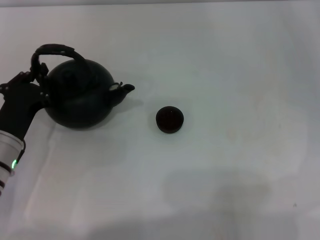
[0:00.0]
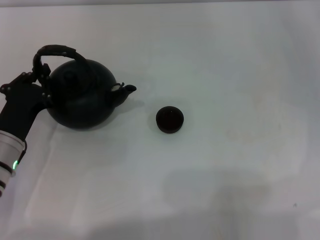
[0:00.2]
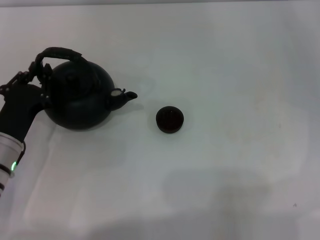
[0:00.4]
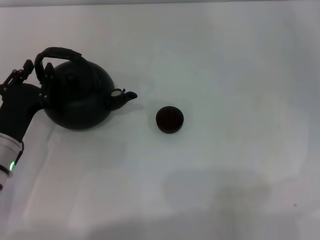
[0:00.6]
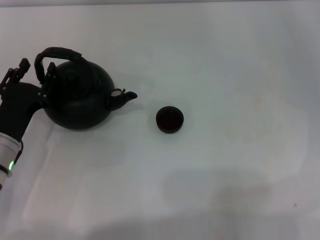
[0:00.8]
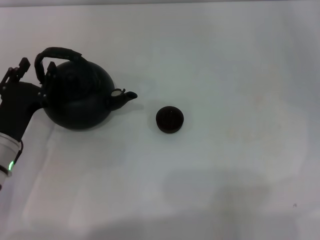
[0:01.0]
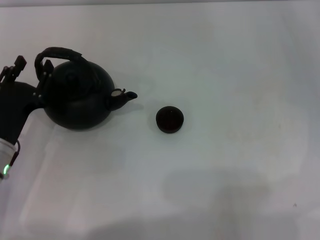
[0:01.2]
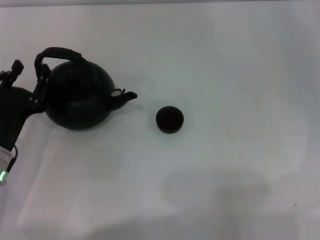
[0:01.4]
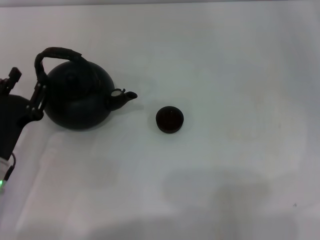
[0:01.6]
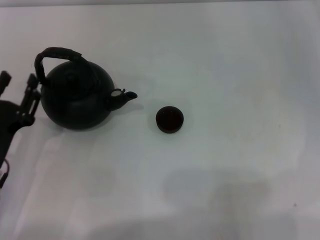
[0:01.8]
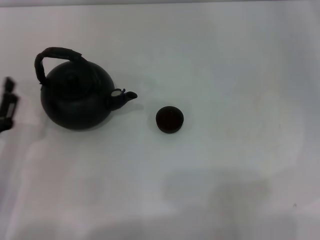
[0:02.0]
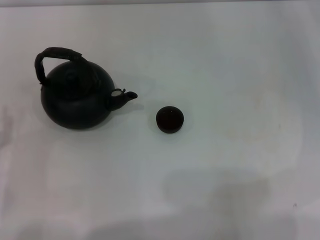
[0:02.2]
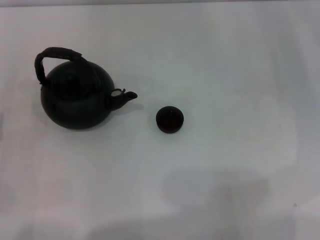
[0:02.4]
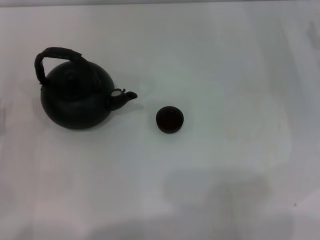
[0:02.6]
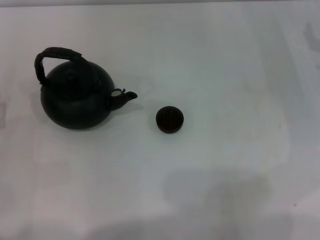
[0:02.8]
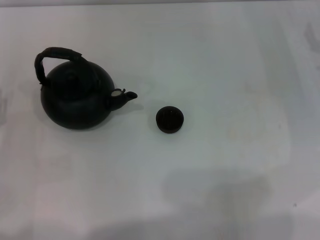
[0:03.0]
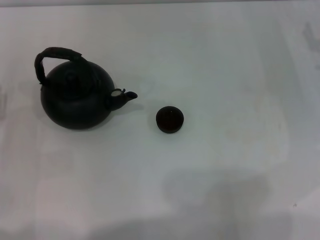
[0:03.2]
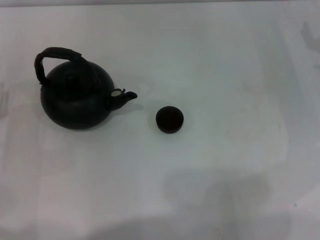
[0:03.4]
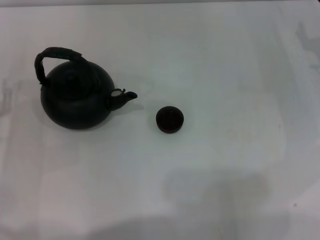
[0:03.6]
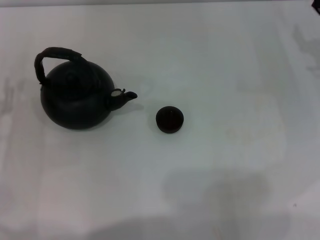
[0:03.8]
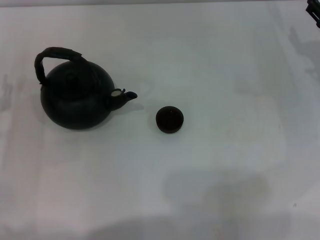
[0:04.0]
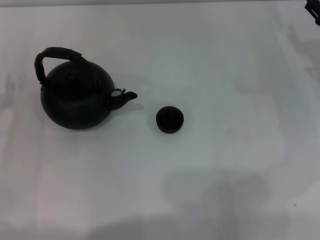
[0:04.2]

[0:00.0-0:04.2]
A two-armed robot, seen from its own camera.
Task of the whole recording: Grasp the handle of the teapot with one hand and pour tea into the teacup.
Step, 0:00.0 to 0:01.8: Put down the teapot with the left gripper.
0:00.0 to 0:01.4: The left gripper opens up.
0:01.4 to 0:02.8: The left gripper goes roughly 5 cm to the left.

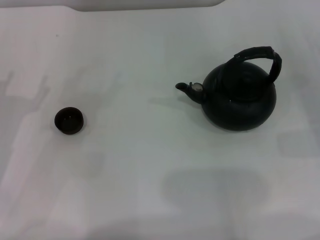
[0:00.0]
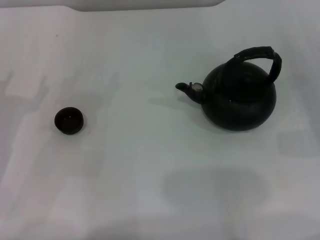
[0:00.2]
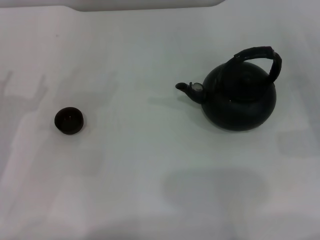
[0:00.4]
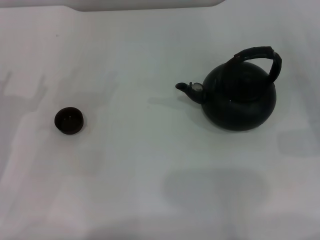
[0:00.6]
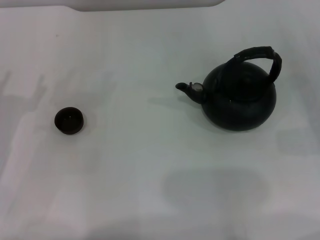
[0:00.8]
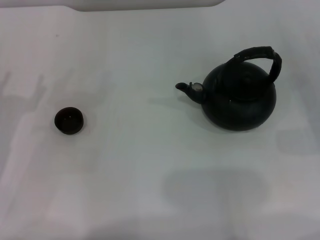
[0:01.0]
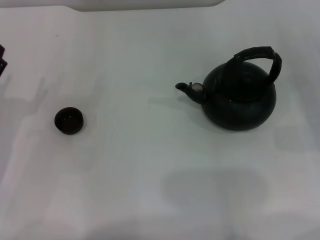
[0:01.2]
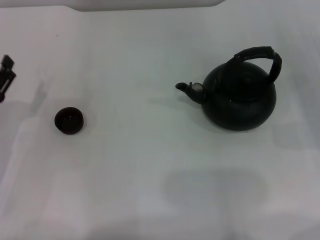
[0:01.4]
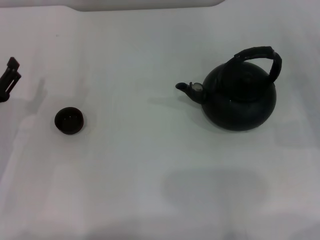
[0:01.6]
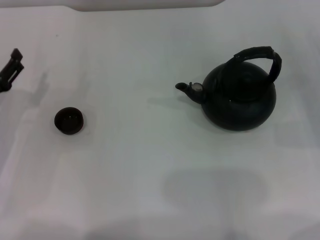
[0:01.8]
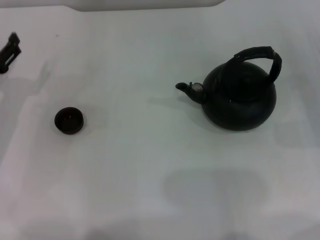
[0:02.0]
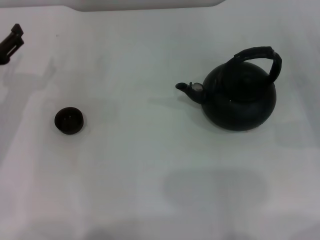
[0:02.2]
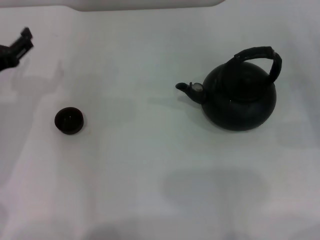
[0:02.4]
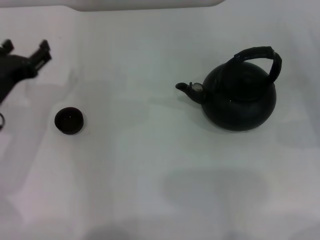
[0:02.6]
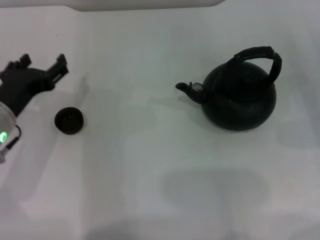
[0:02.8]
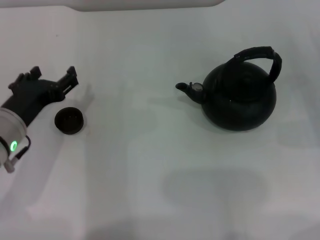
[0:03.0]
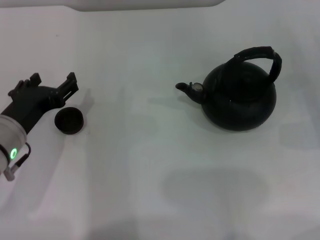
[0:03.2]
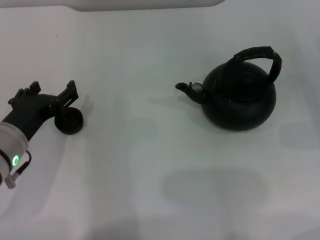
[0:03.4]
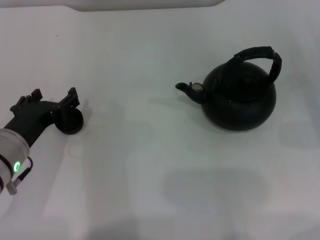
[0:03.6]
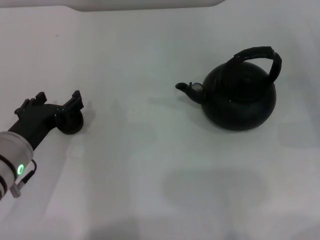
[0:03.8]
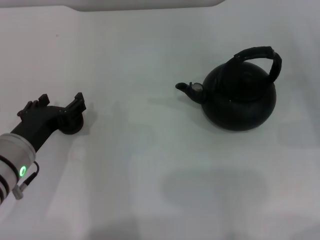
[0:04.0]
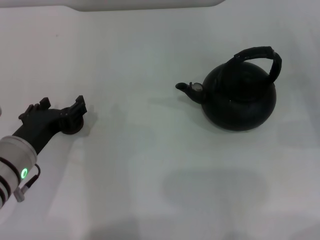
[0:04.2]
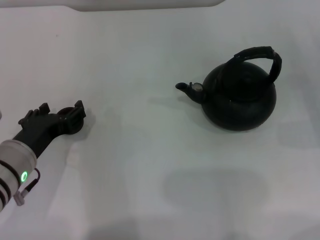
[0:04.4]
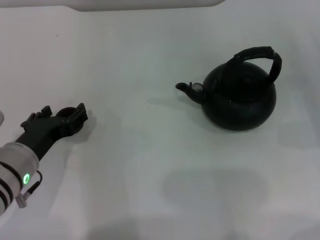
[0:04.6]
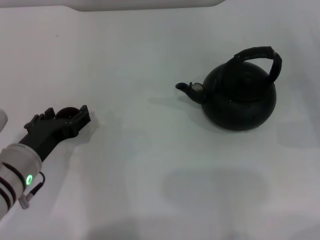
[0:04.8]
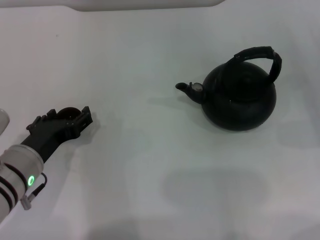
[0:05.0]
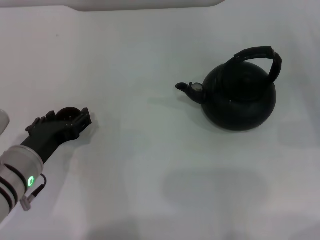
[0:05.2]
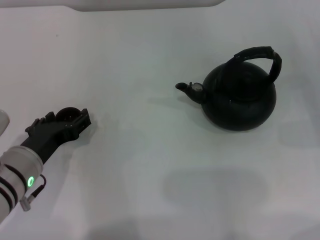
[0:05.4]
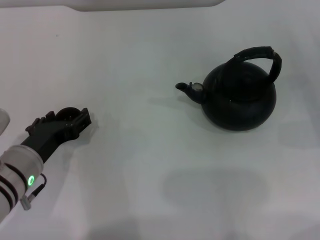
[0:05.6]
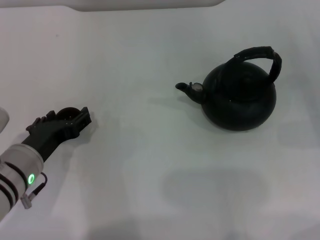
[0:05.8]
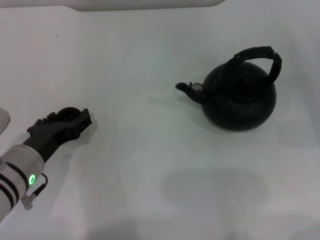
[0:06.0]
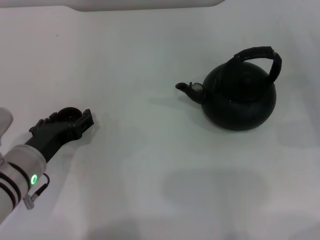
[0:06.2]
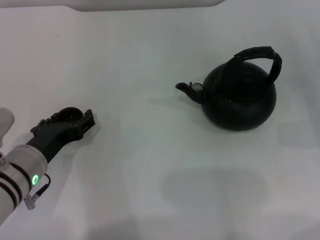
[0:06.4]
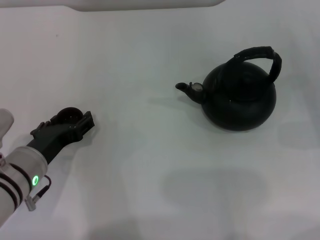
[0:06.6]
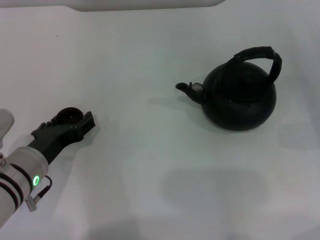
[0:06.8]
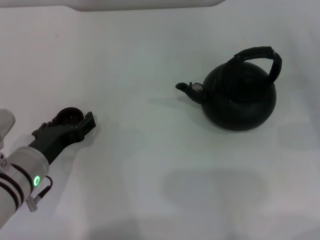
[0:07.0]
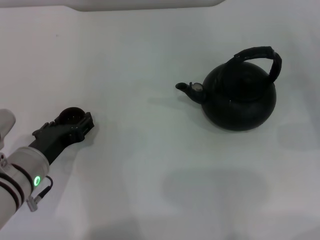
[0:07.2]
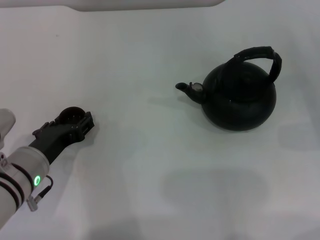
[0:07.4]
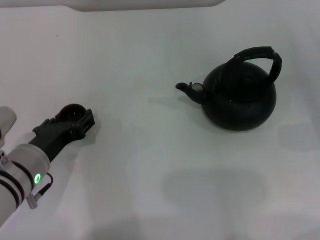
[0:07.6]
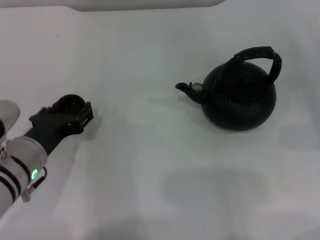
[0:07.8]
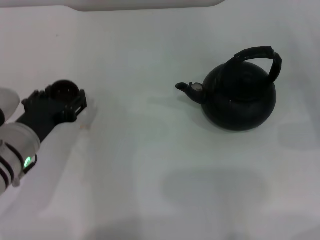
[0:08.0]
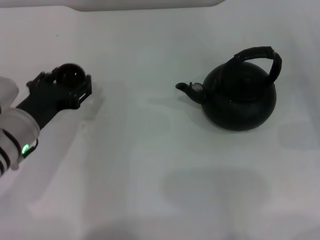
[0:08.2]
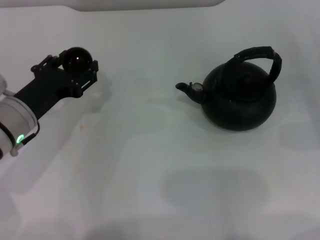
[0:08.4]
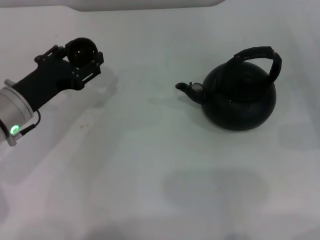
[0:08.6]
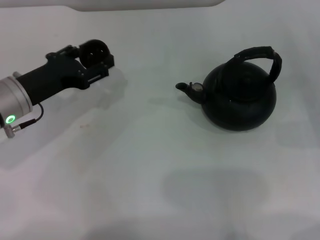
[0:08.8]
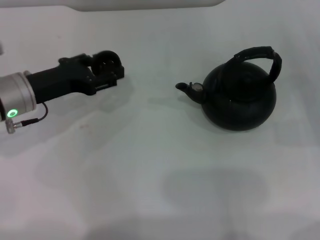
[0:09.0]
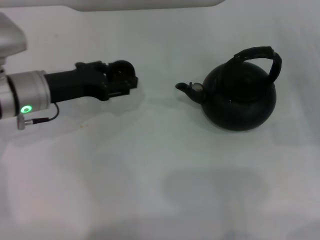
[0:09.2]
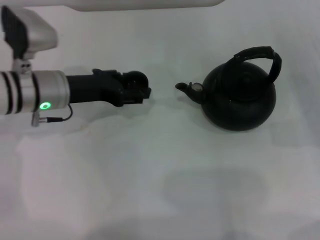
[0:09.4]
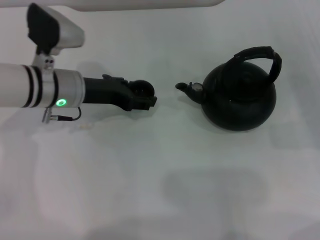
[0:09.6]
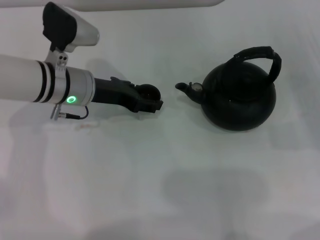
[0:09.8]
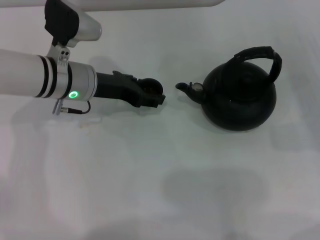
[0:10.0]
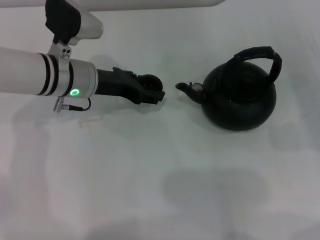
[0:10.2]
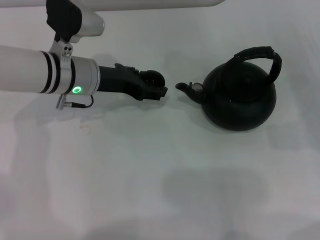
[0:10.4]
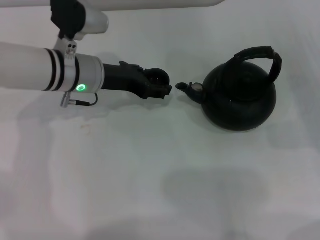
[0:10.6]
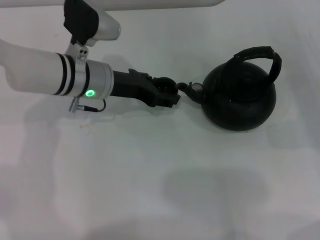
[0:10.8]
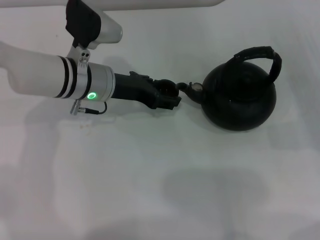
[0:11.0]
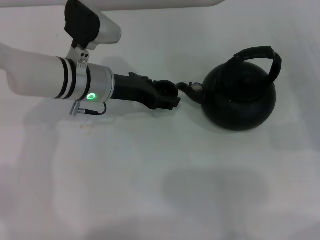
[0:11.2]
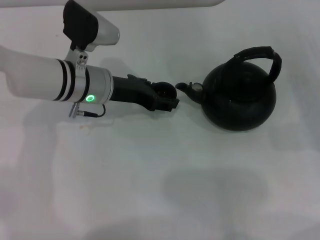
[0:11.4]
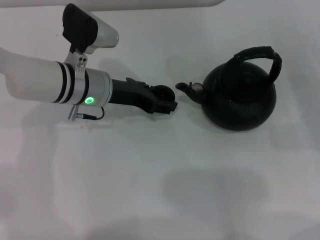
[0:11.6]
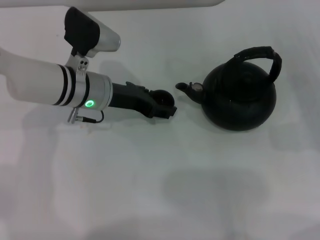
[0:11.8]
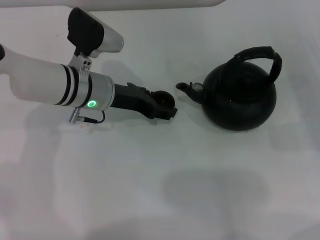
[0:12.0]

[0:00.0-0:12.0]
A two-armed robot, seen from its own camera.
Task of the whole recording: Grasp the handle of the teapot with one hand and pour tea into the teacup.
Step, 0:00.0 to 0:07.8: Pick up the teacup with the left gripper.
0:01.6 to 0:03.0: The left gripper goes about 10 cm to the right and upward.
0:03.0 to 0:04.4: There are only small adjustments of the grippers.
0:04.4 to 0:06.0: Both grippers stay about where they are.
0:06.0 to 0:07.6: The left gripper closes up.
0:07.6 to 0:09.0: The left gripper goes roughly 10 cm forward.
0:09.0 to 0:10.4: The left gripper moves to the right and forward, approximately 10 cm.
0:10.4 to 0:12.0: There are only small adjustments of the grippers.

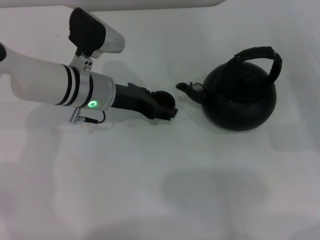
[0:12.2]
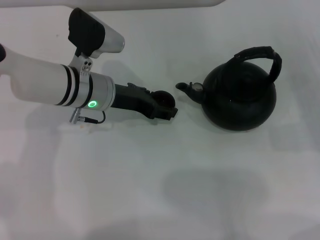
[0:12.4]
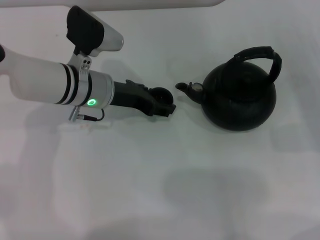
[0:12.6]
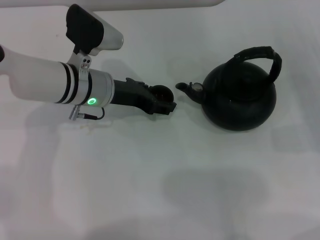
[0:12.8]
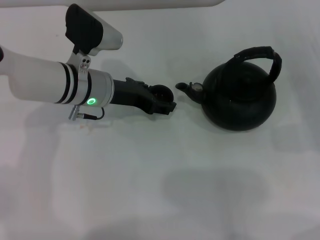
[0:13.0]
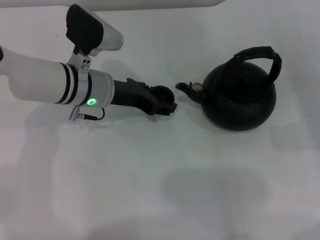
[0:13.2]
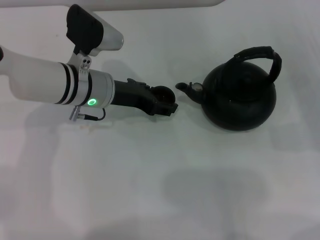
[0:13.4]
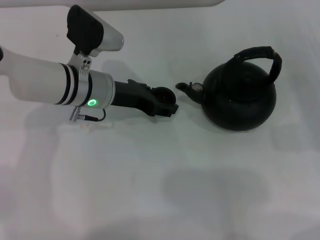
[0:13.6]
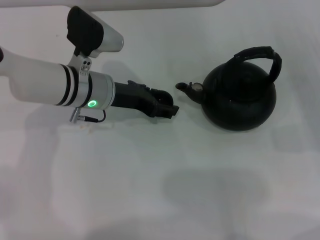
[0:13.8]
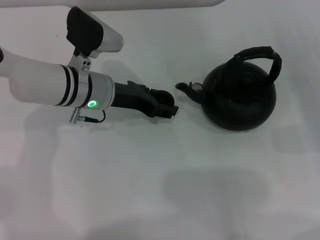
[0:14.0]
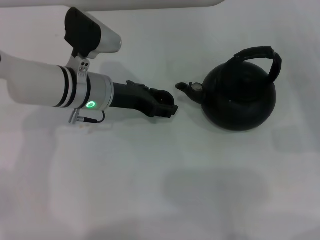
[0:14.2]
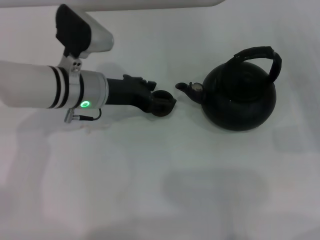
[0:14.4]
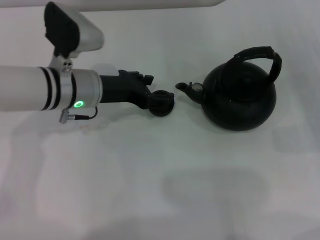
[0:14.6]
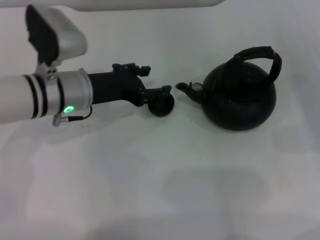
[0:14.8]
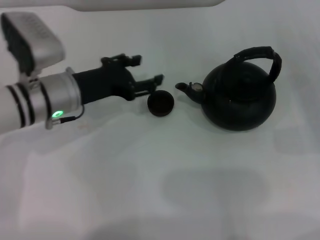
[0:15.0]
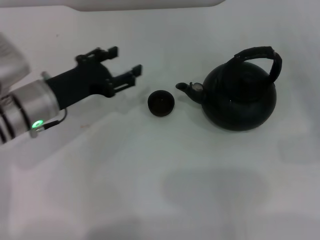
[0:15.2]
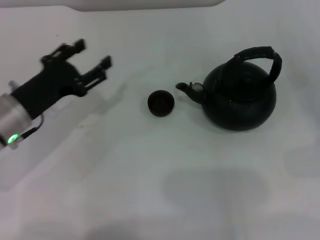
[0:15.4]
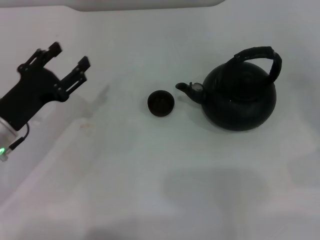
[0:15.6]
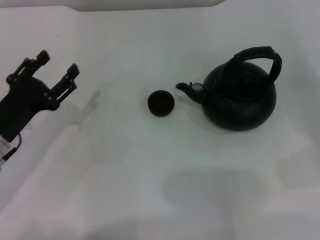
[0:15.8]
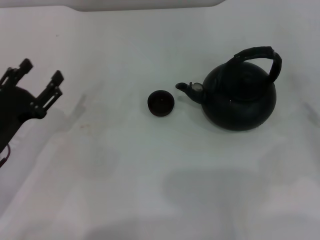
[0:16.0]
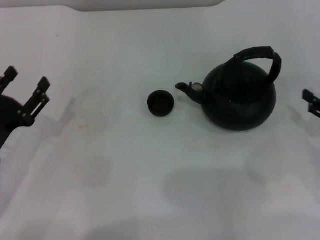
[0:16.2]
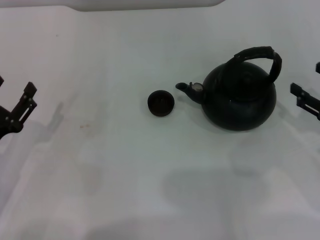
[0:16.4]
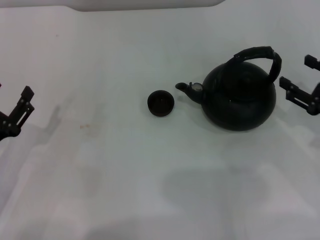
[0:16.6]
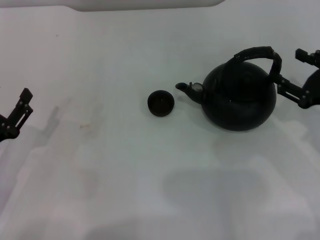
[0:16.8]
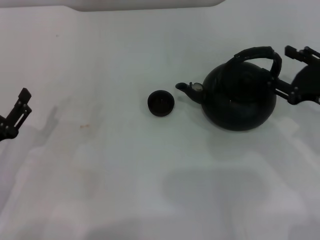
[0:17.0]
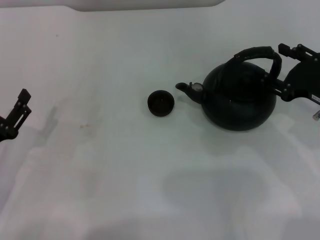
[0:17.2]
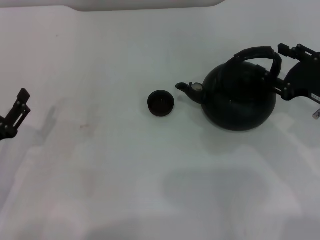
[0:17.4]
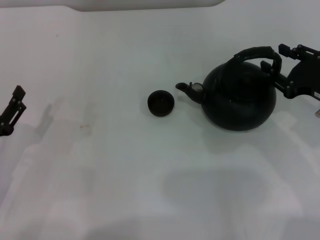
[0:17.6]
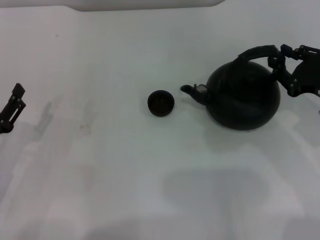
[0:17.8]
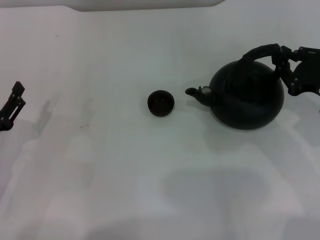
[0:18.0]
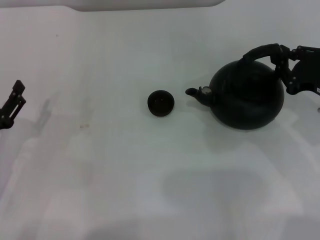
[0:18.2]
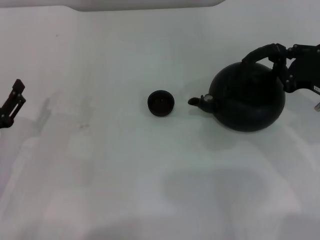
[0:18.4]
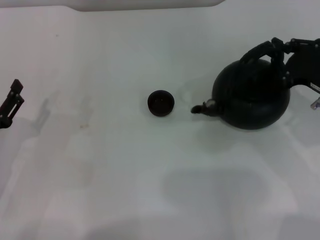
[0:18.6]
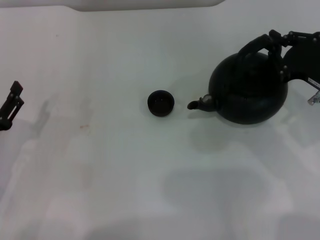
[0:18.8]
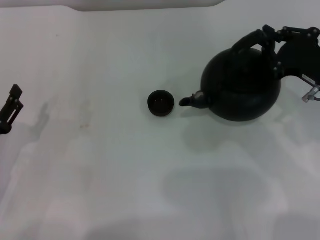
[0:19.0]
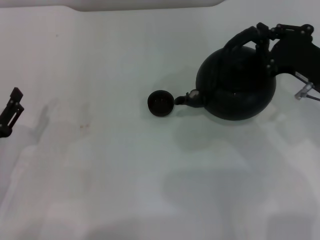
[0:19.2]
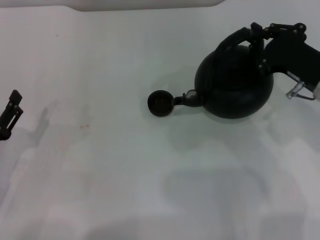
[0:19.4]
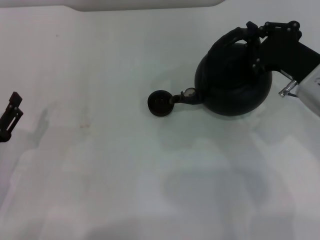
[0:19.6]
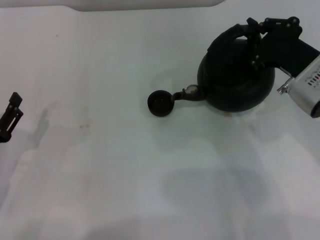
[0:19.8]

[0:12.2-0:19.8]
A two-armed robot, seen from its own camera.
Task of the whole recording: Grasp the handle of the teapot with one hand and pour tea into the teacup.
Step, 0:12.2 to 0:14.8: Place the teacup in the center of view with the left gripper.
Step, 0:15.2 to 0:19.0: Pick up the teapot with the right gripper.
0:12.2 to 0:13.8: Both grippers stay put.
0:13.8 to 0:15.2: The left gripper heads to the left and backward, covering approximately 10 cm.
0:15.2 to 0:16.8: The right gripper shifts about 10 cm to the left, while the left gripper shifts roughly 15 cm backward, to the left and downward.
0:16.8 to 0:18.2: The right gripper closes its fingers.
0:18.2 to 0:19.8: The right gripper is displaced to the left by some 5 cm.
